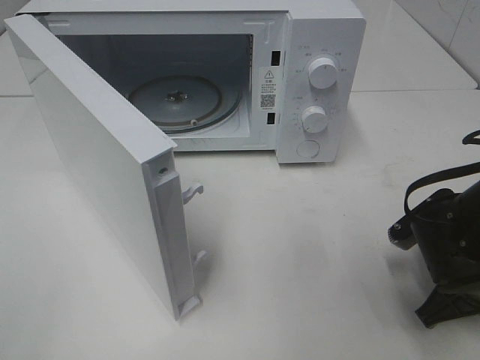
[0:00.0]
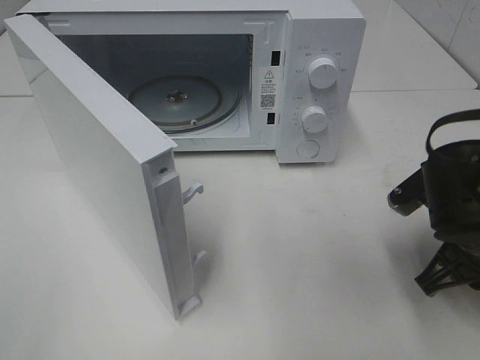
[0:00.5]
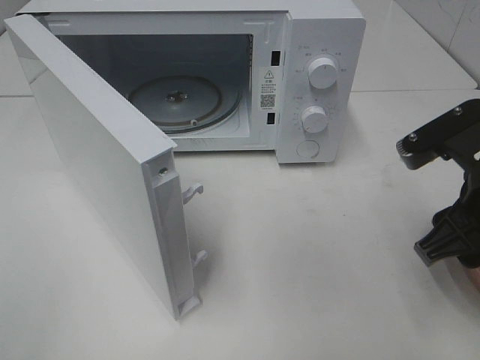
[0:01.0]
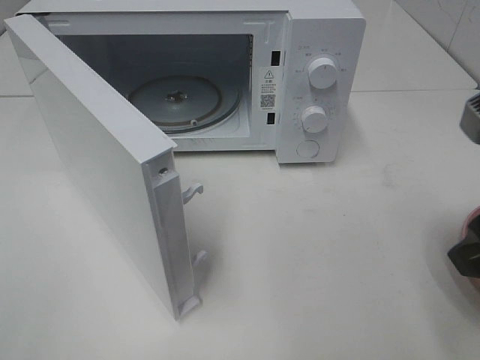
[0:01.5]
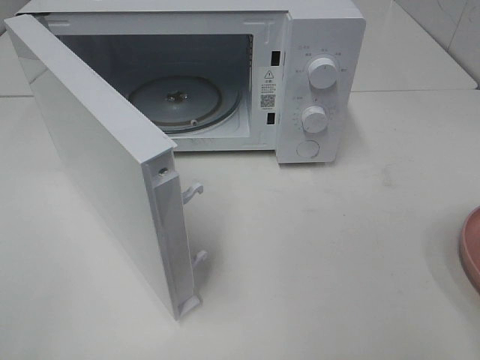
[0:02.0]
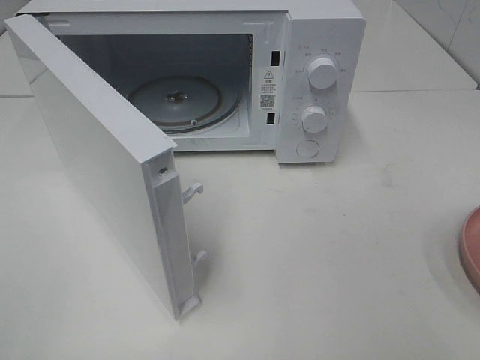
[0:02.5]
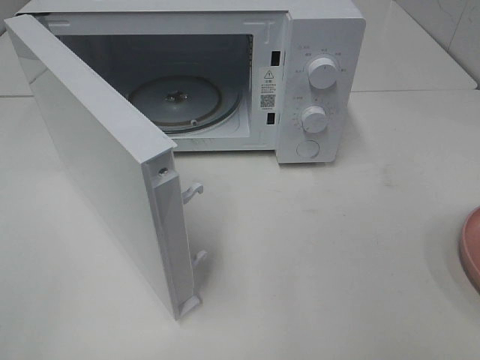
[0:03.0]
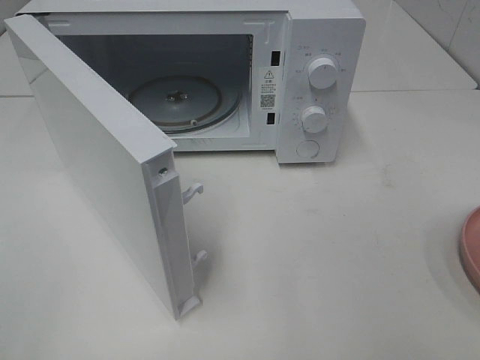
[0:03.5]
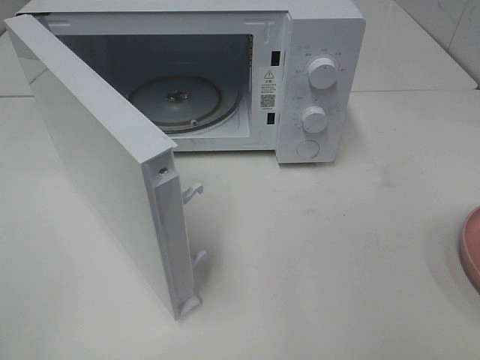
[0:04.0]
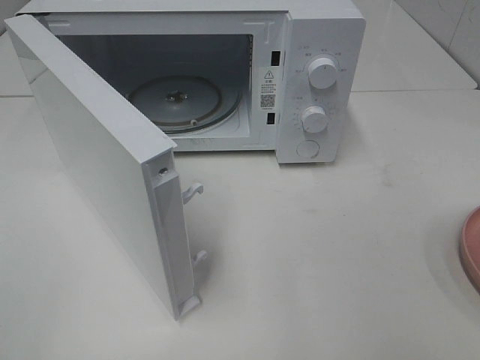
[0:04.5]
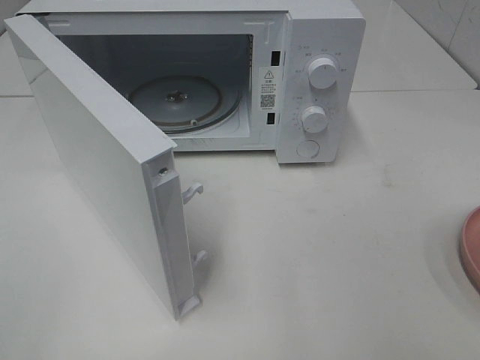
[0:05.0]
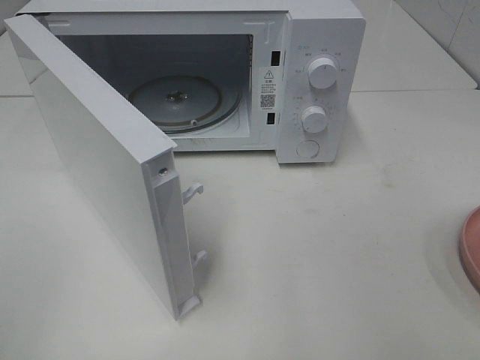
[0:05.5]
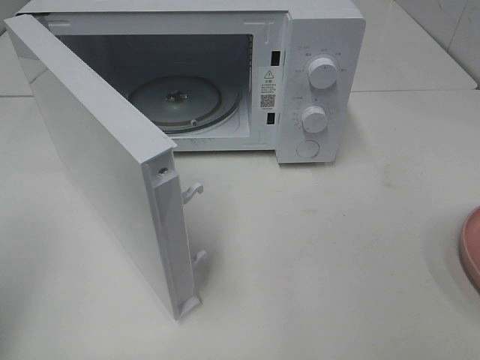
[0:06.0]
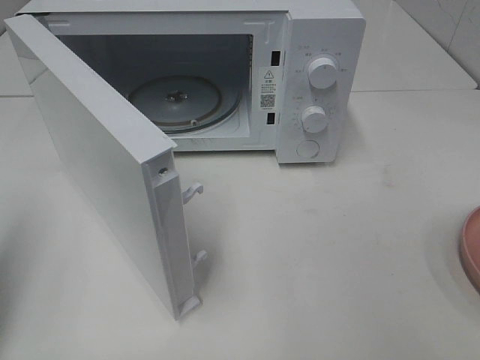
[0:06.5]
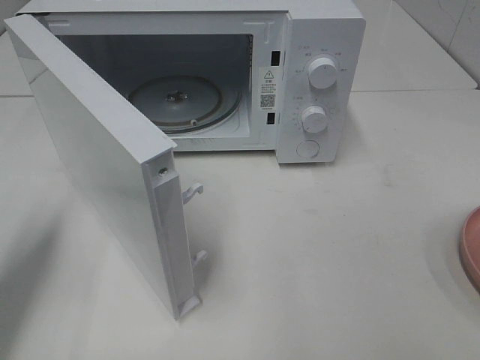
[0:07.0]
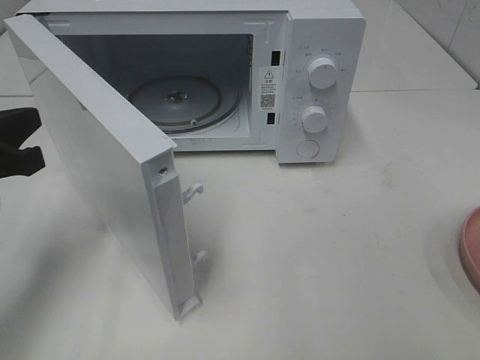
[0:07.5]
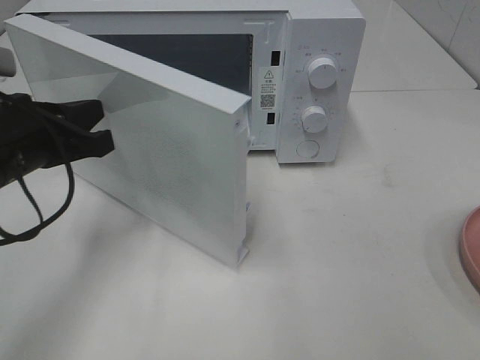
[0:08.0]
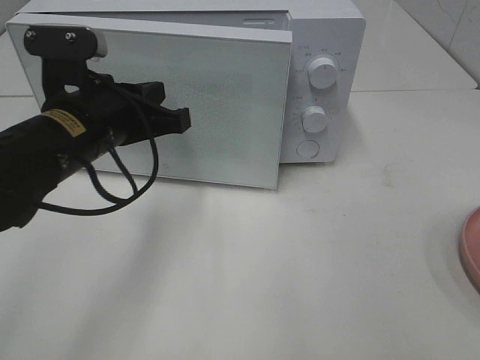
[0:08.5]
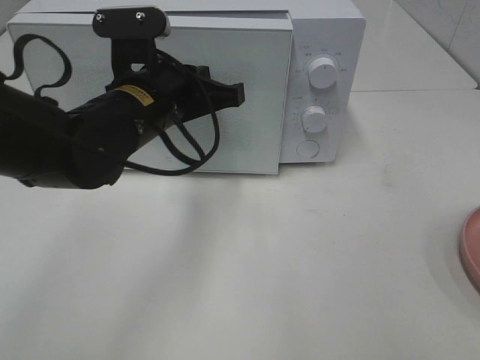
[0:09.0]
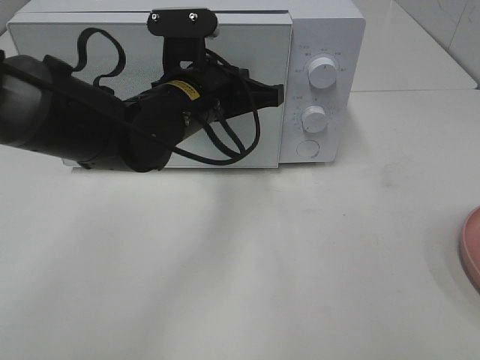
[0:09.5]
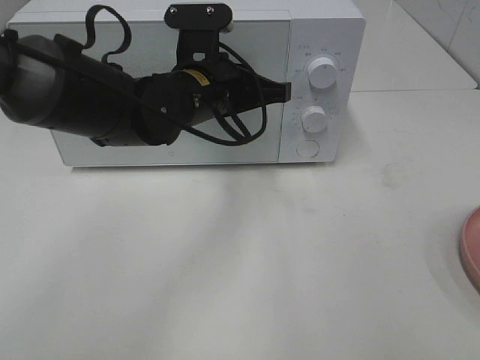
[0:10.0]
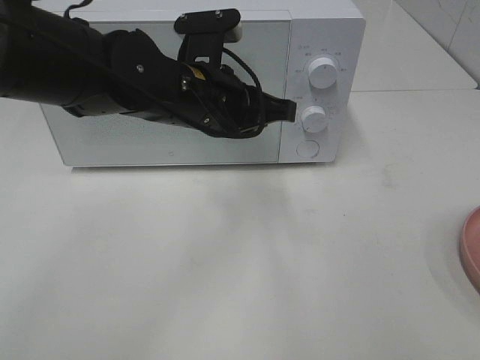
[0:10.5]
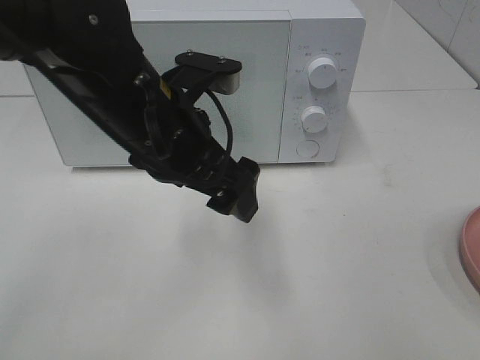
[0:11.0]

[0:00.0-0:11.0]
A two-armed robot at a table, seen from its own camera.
Task of the whole recording: Heat the burger.
Step, 0:01.0 to 0:10.0: Left hand: close the microwave door.
0:00.0 to 0:02.0: The right gripper is displaced upward and backward by approximately 25 cm, and opens its fingers.
0:05.5 to 0:07.5: The left gripper shifts some 25 cm forward and downward, and closes up.
0:07.5 to 0:09.0: The left gripper goes about 20 cm to the right and forward.
0:09.0 to 0:11.0: The left gripper travels backward by some 5 cm, and opens up.

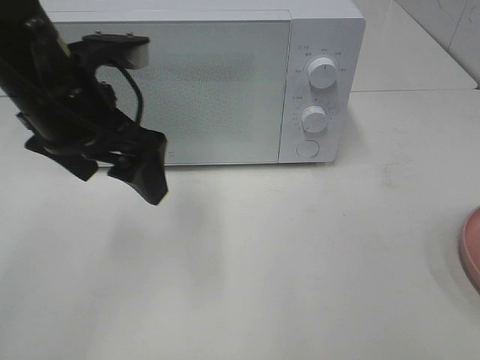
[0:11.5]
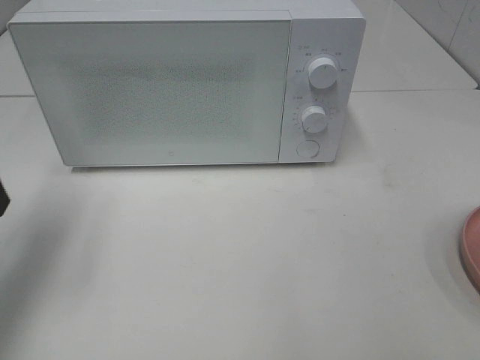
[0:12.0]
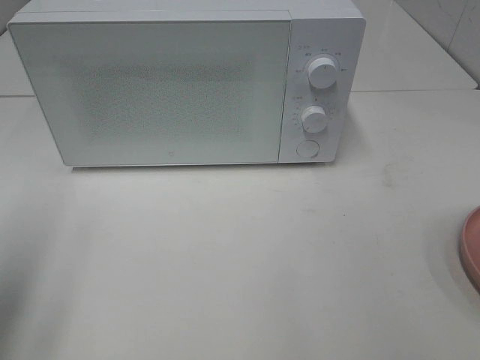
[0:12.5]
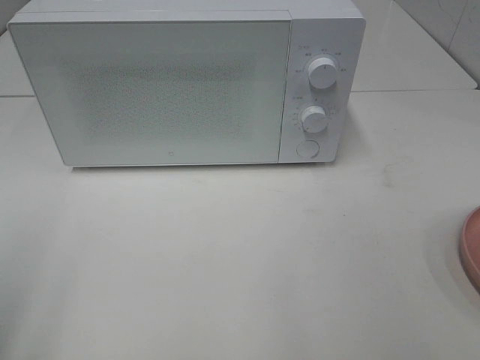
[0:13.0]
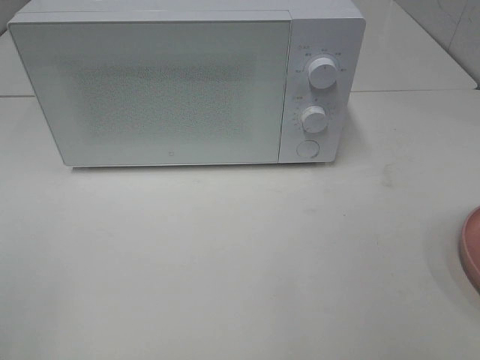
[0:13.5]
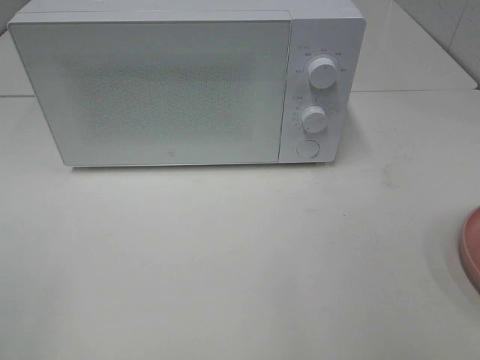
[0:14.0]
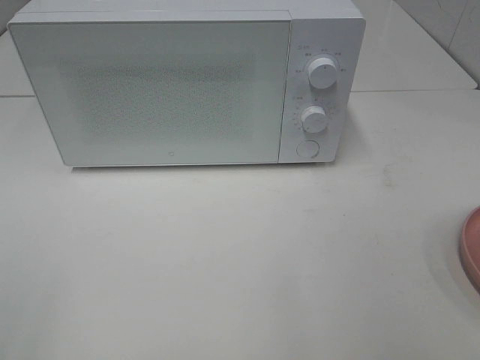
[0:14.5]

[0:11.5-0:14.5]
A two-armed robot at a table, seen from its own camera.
Task of the whole recording: Heat the burger.
0:11.5 to 0:13.0: The left gripper goes about 25 cm backward and to the left.

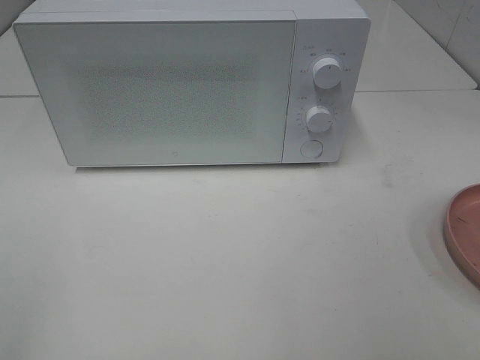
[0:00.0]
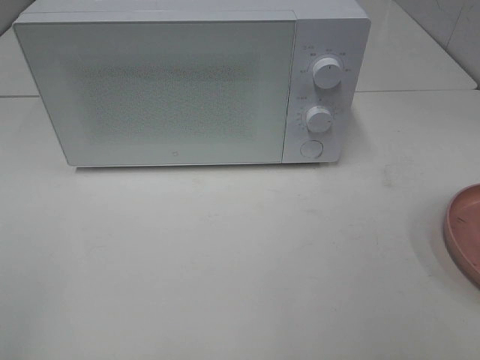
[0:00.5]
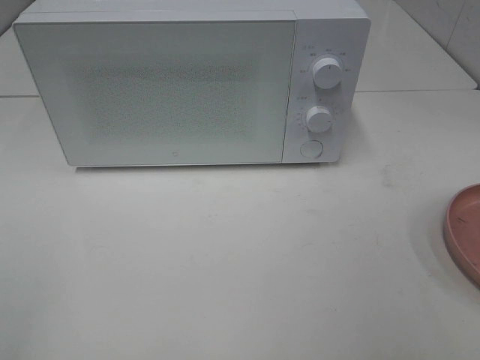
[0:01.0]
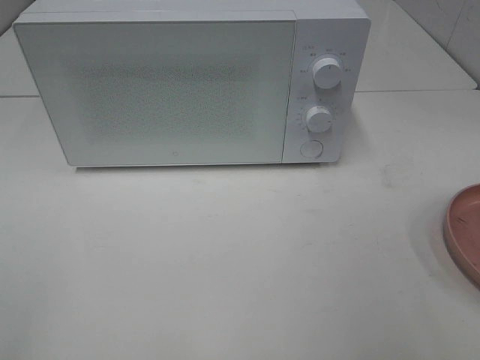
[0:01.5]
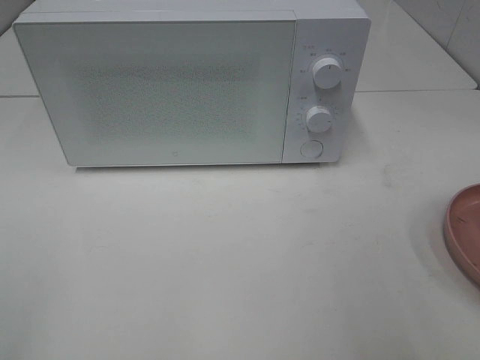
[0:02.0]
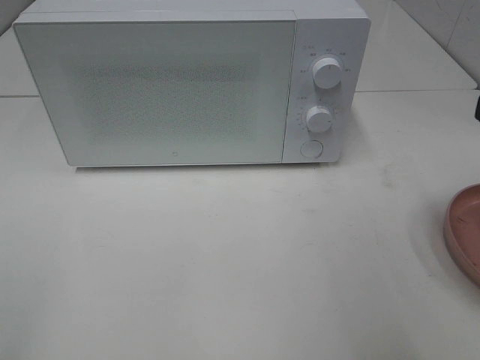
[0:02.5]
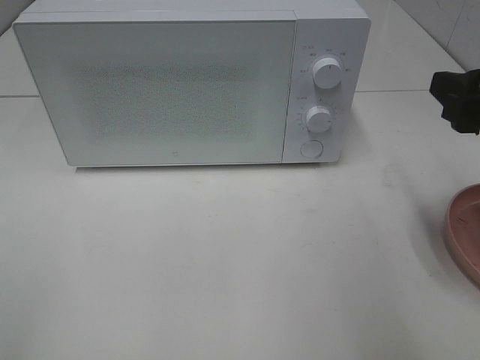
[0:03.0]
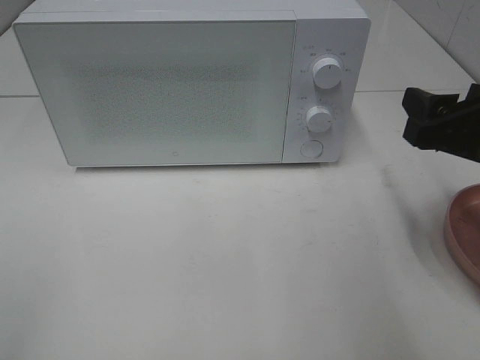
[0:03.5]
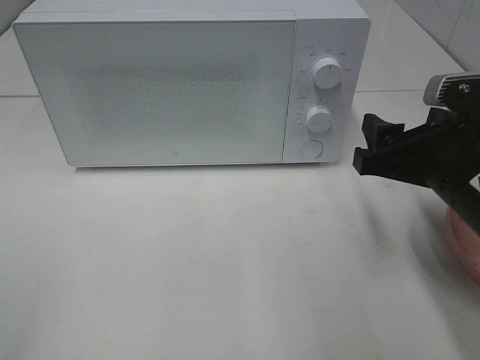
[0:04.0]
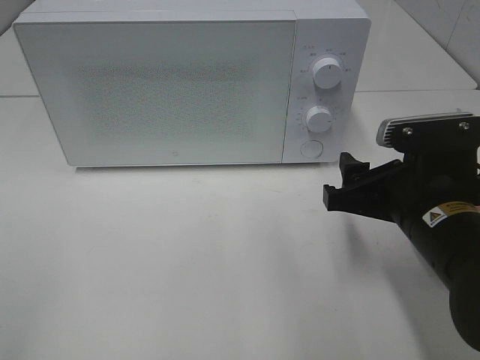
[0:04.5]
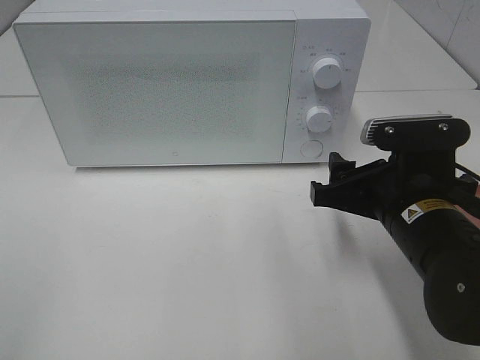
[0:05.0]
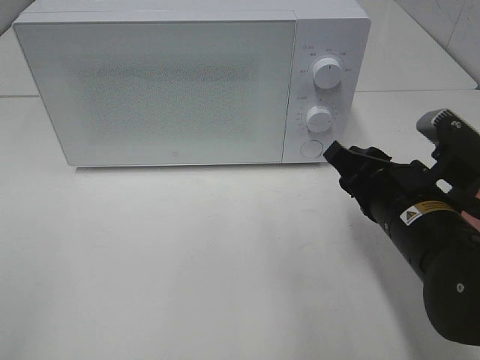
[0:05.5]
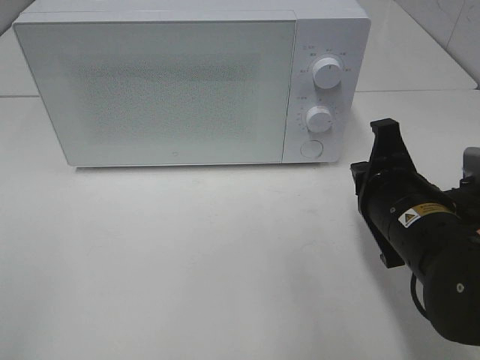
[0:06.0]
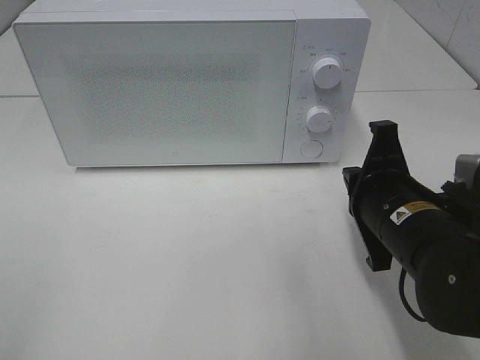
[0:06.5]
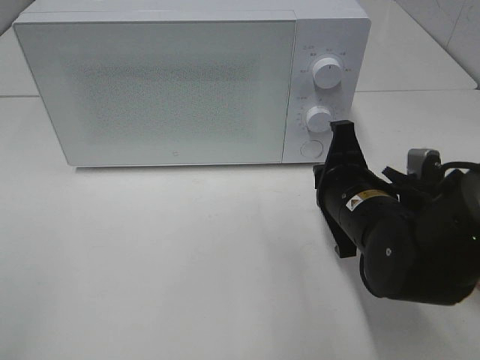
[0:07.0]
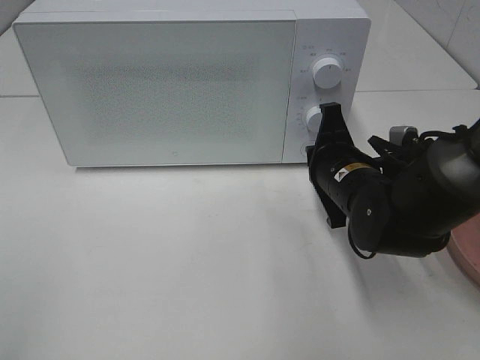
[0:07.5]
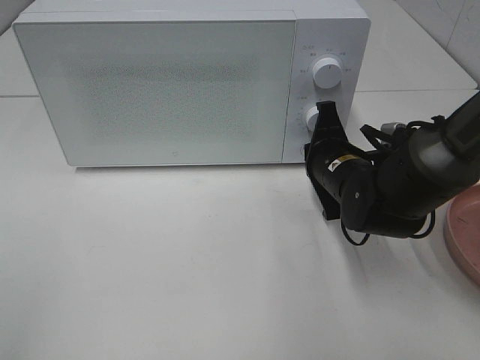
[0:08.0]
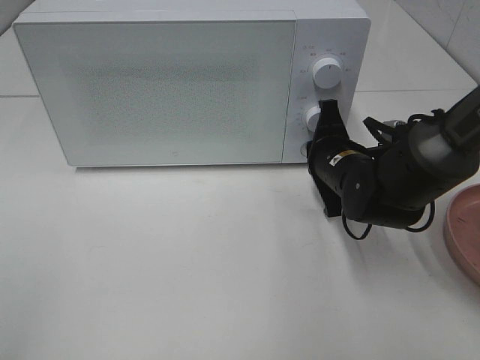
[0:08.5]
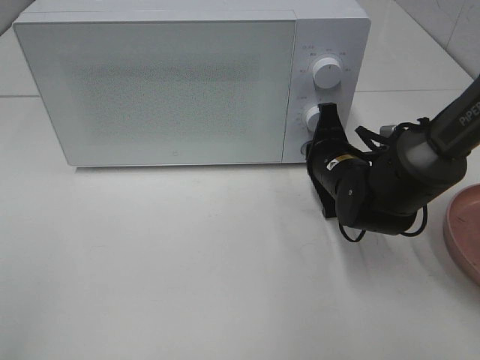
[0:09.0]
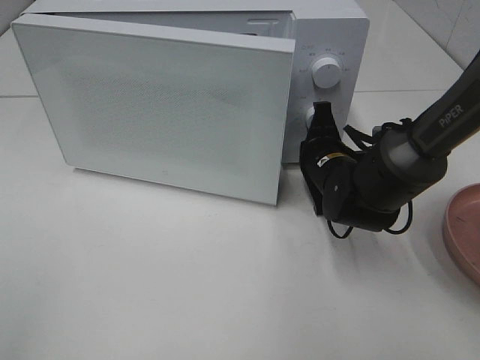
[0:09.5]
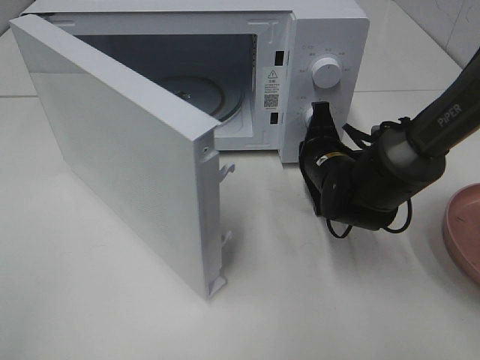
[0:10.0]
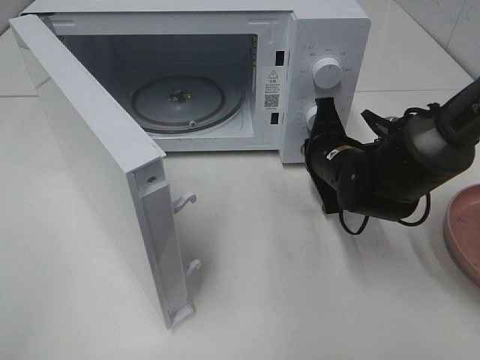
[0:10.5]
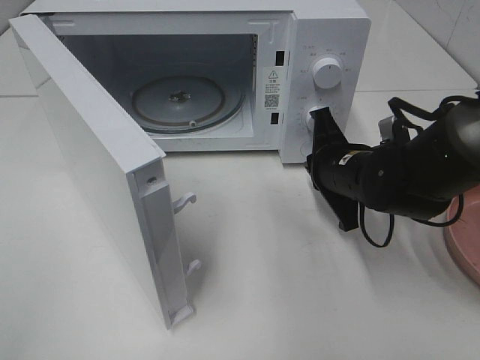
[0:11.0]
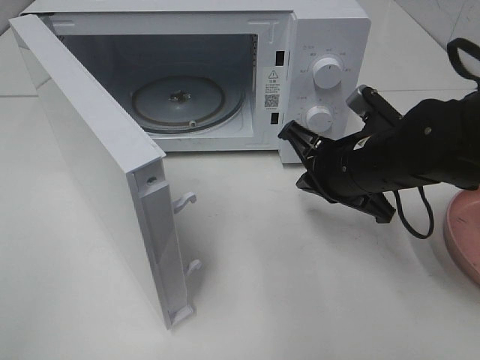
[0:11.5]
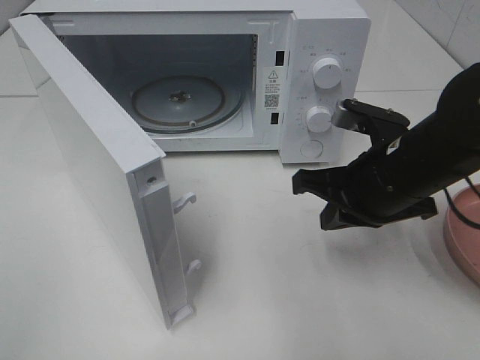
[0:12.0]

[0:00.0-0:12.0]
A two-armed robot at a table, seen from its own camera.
Task of the whole recording: Heat the burger.
Step, 0:00.0 to 0:10.5: Right hand: press the switch.
0:02.0 to 0:04.0: The right gripper shifts approximately 15 cm downward, forward and to the left.
0:04.0 to 0:06.0: The right gripper shifts by roughly 5 cm, and closes.
0:06.0 to 0:08.0: The right gripper shifts roughly 10 cm forward.
0:10.0 to 0:12.0: The right gripper moves backward and upward, approximately 15 cm.
